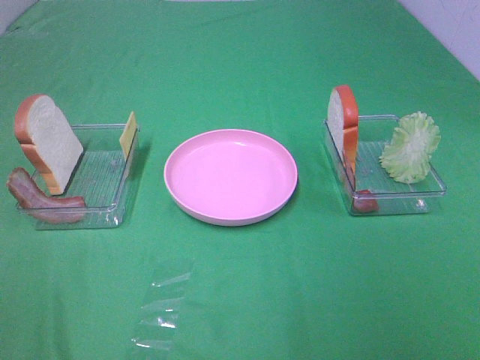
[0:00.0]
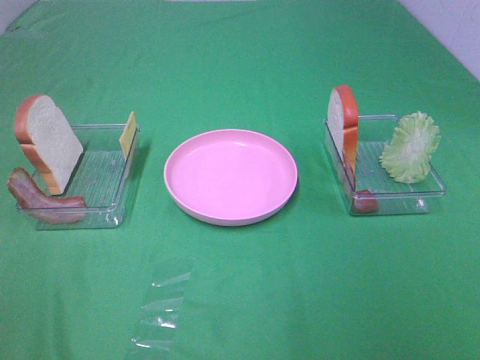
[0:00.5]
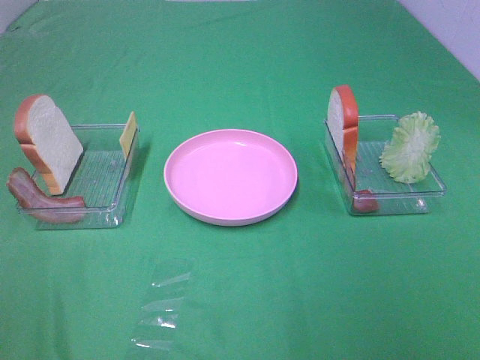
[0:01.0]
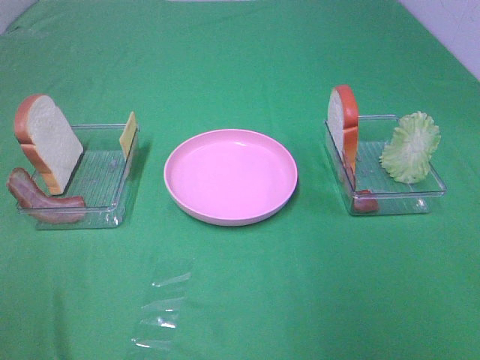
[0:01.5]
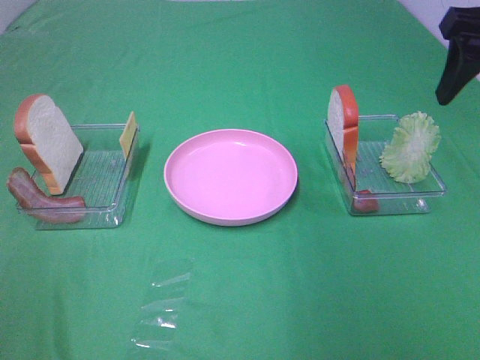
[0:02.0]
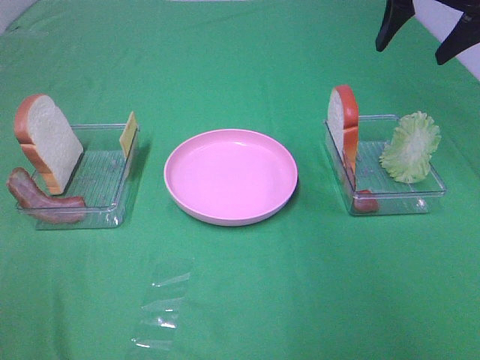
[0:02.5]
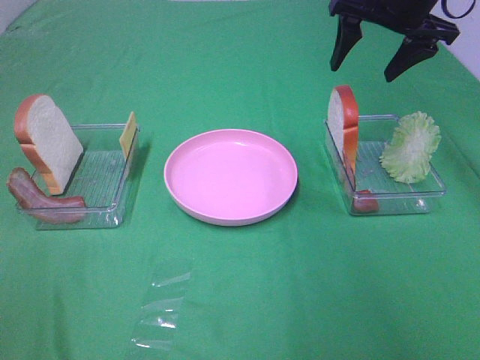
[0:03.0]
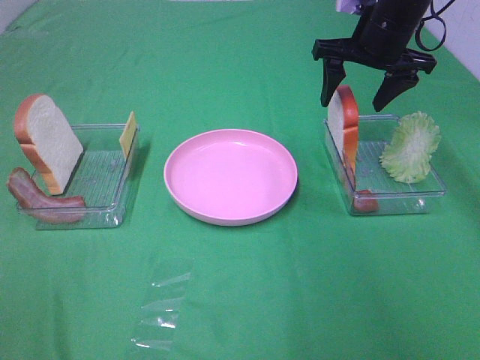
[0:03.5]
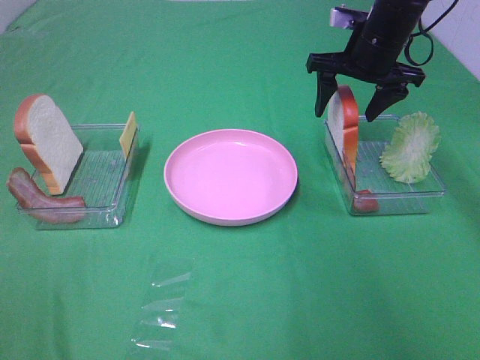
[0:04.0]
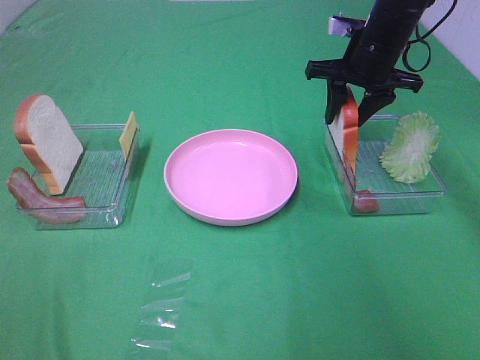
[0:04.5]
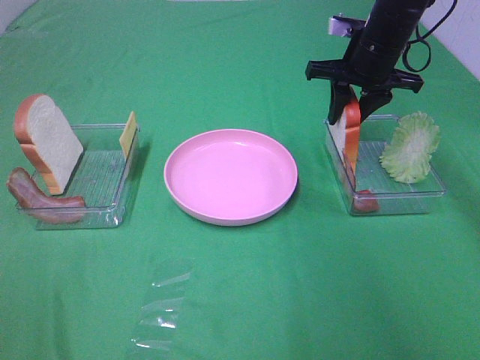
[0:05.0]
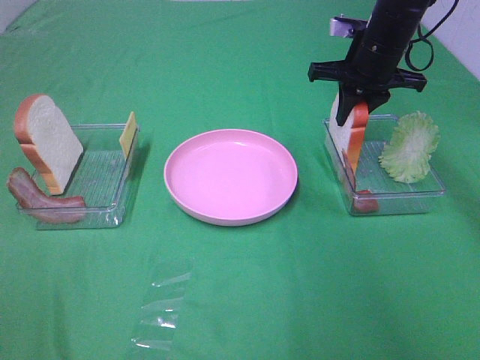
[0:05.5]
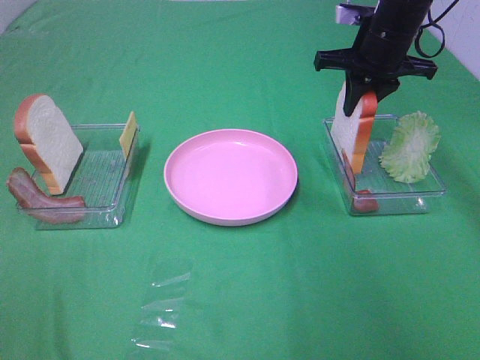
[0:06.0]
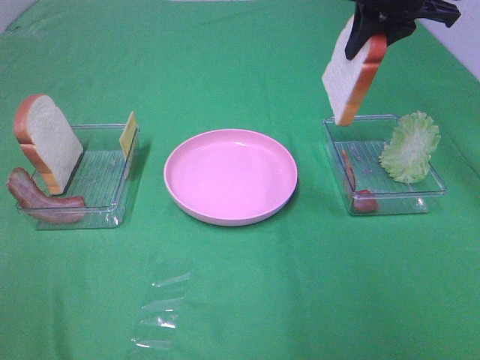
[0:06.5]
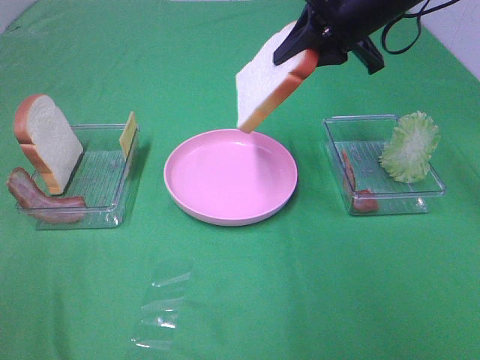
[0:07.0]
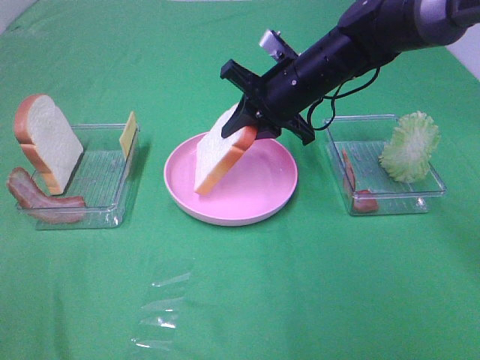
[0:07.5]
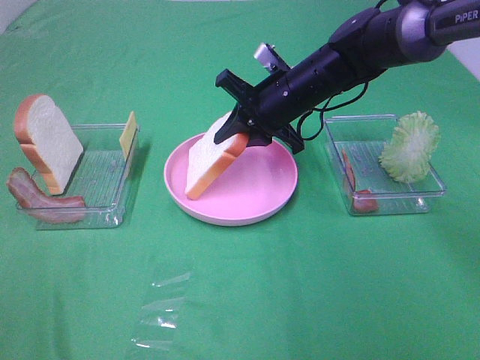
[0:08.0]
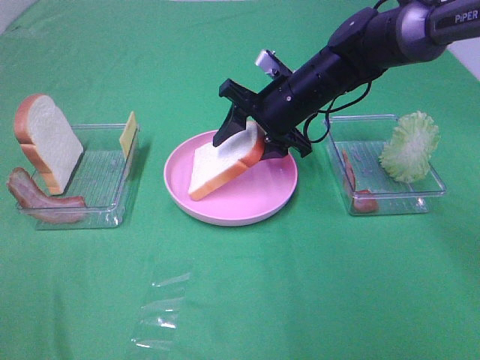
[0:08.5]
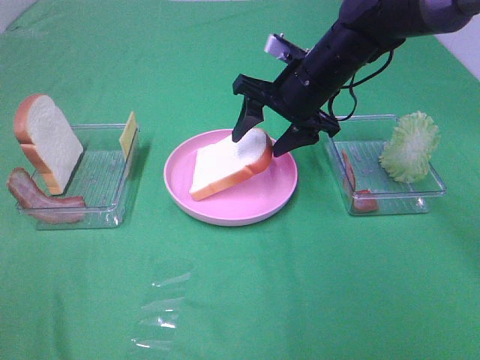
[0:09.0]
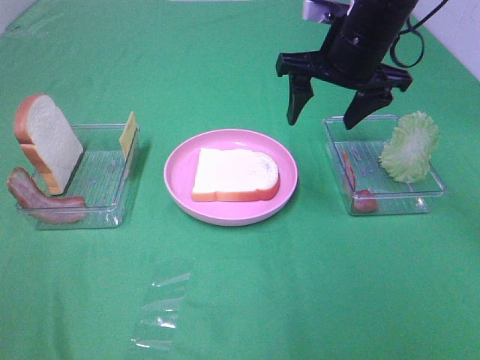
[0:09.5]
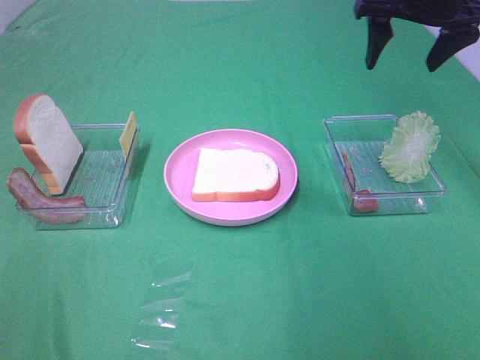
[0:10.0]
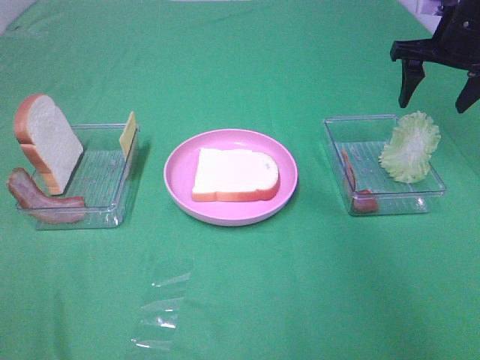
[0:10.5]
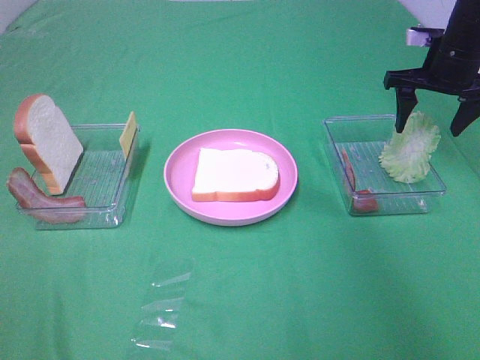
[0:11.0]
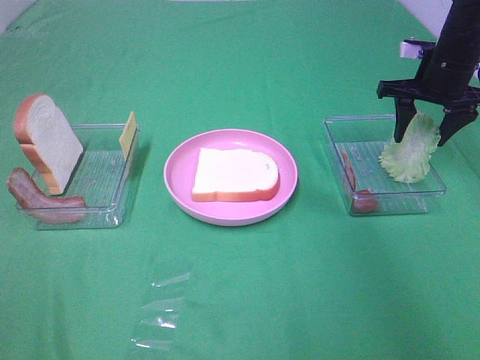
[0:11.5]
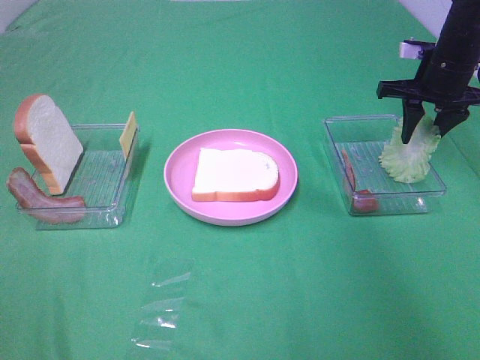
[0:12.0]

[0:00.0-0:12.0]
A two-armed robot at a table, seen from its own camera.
Task of the whole recording: Make sandwiches.
Step, 0:00.0 to 0:05.0: Right hand:grab the bread slice.
Step, 0:05.5 to 0:09.0: Right hand:place the bread slice on the plate.
0:00.0 to 0:02.0: The right gripper moves forward, roughly 30 cm.
0:02.0 to 0:04.0: The right gripper shifts approximately 20 cm forward, downward and to the left.
0:04.0 to 0:06.0: The right gripper closes up.
0:06.0 to 0:08.0: The right gripper shifts about 15 cm to the left and downward.
0:08.0 to 0:10.0: The right gripper travels upward and to the right by about 20 cm, and opens.
0:10.0 to 0:12.0: The right gripper is displaced downward and to the right by about 15 cm, and closes up.

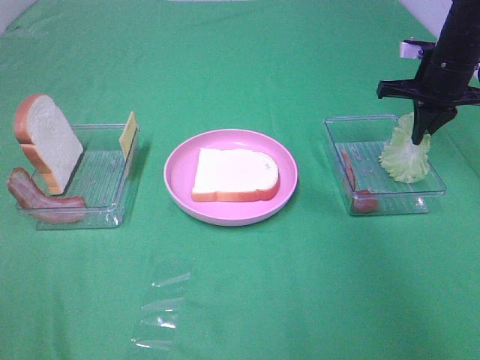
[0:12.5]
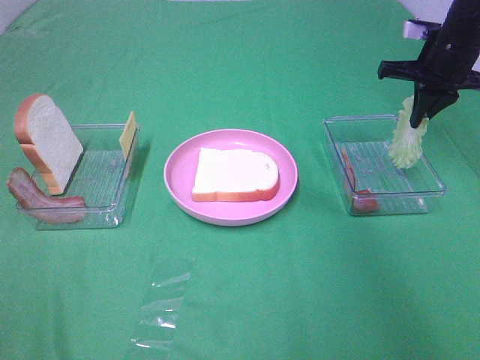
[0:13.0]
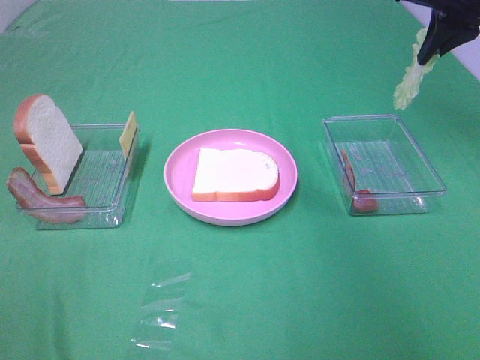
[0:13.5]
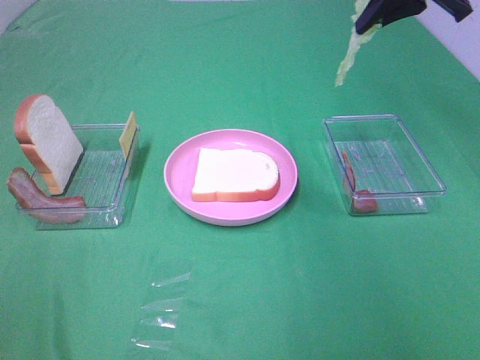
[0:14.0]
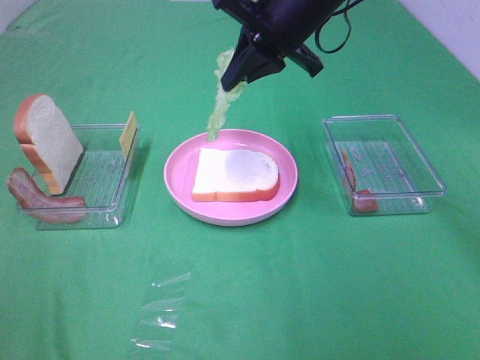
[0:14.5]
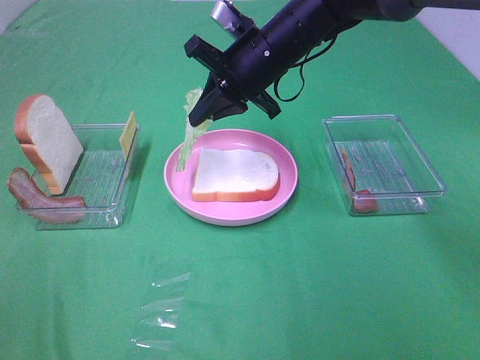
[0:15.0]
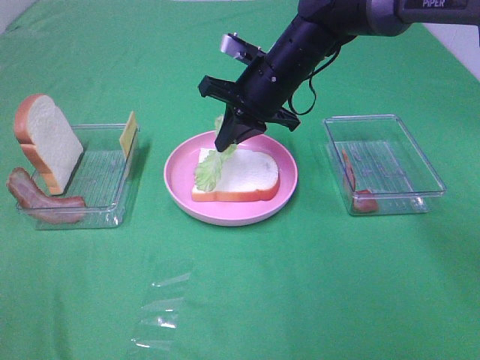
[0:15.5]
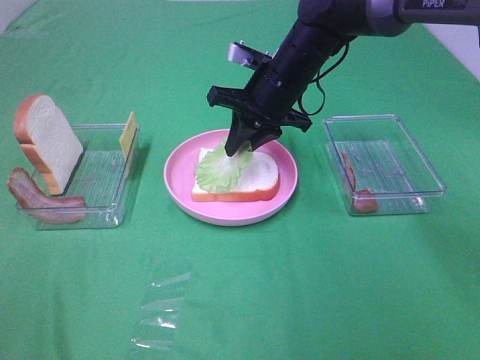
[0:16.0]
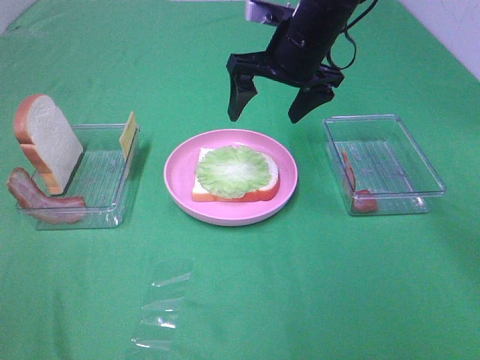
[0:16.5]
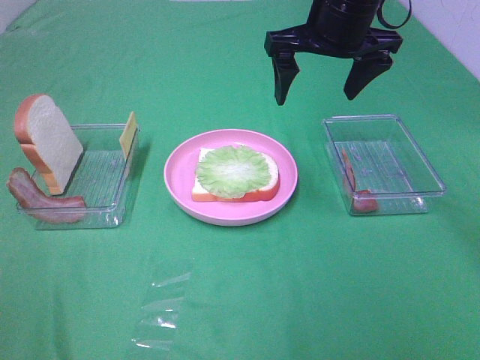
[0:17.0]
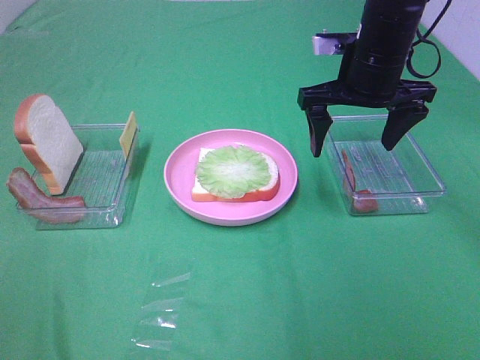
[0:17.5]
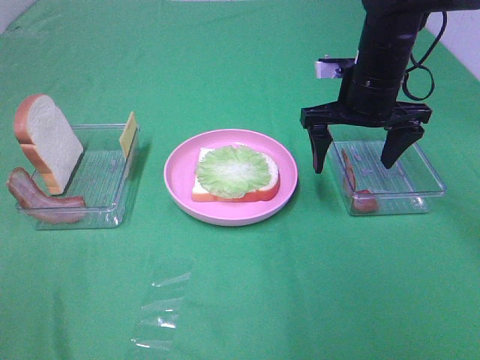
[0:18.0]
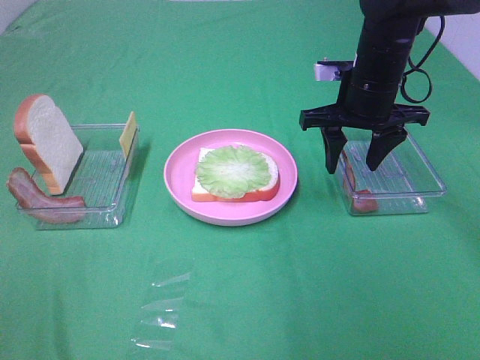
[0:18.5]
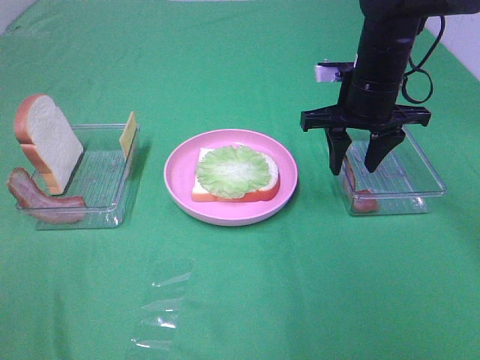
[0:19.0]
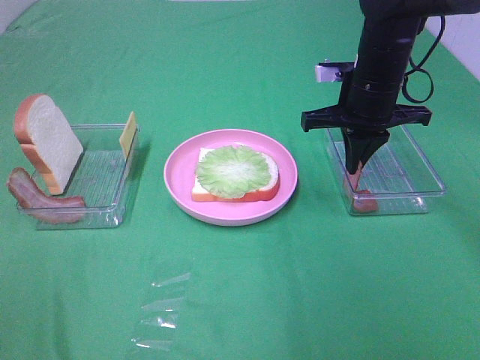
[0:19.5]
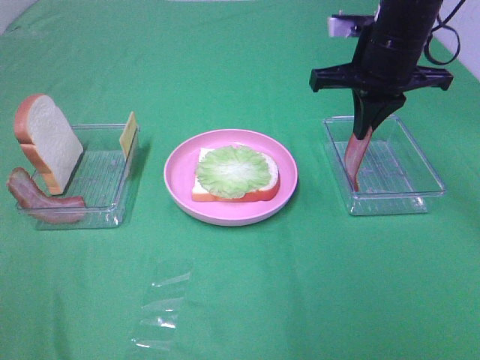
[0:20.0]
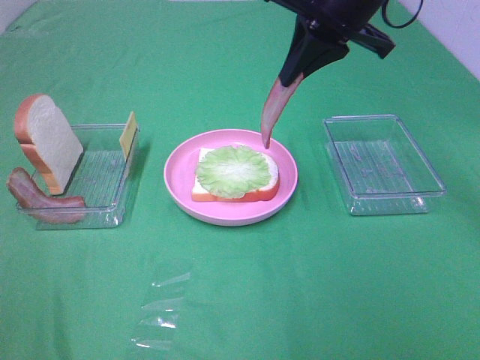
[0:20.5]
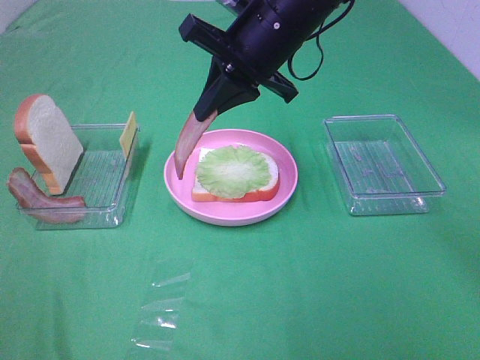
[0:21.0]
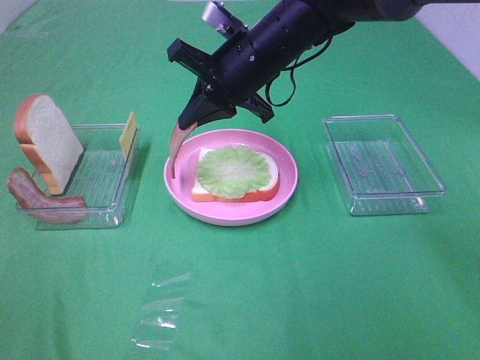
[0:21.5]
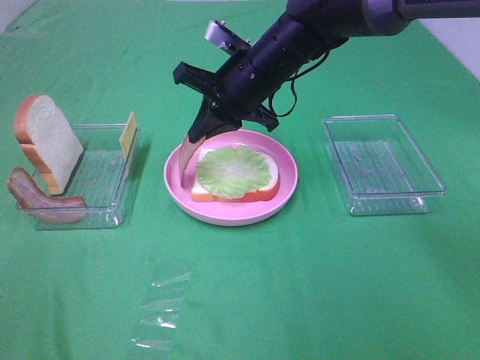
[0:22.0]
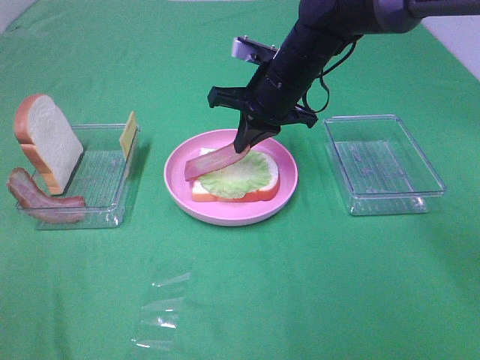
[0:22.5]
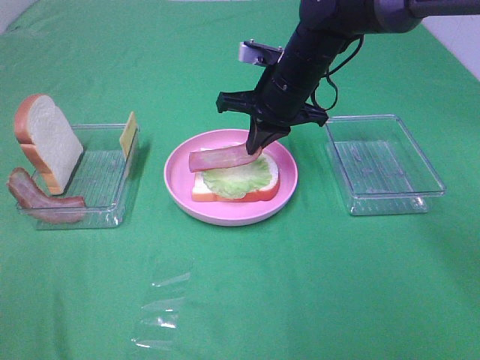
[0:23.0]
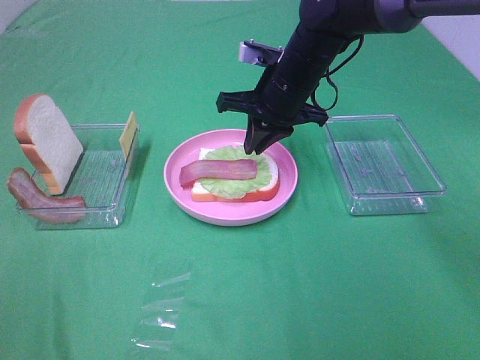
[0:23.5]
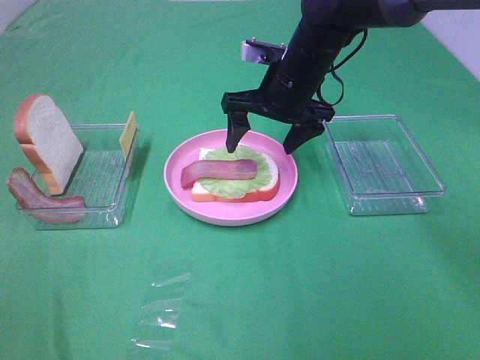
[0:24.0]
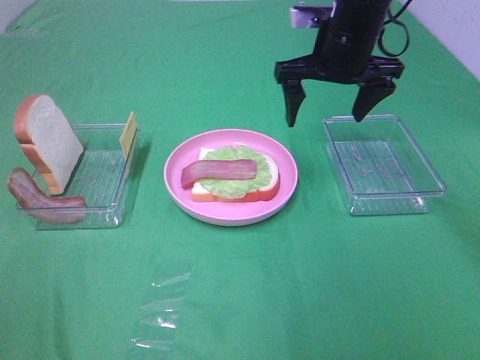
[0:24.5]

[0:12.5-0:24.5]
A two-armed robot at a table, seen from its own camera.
Task of the whole recording: Make sandwiches.
Step, 0:13.0 to 0:16.0: Right hand:place the lettuce slice on the bread slice.
Step, 0:16.5 to 0:19.0: Right hand:grab the bacon.
Step, 0:19.5 to 0:23.5: Right hand:place bacon on lettuce slice.
0:12.5 to 0:14.5: The right gripper shifts approximately 25 cm to the left and upward.
0:14.5 to 0:16.5: The right gripper reaches some 10 cm downward, then returns, and opens up.
0:16.5 to 0:18.5: The right gripper heads to the right and downward, covering about 10 cm, and closes its fingers.
0:18.5 to 0:20.5: The right gripper heads upward, covering about 10 cm, and closes.
0:20.5 to 0:22.5: The right gripper heads downward, covering about 15 cm.
0:22.5 to 0:24.5: The right gripper shifts some 10 cm to the right and upward, and opens up.

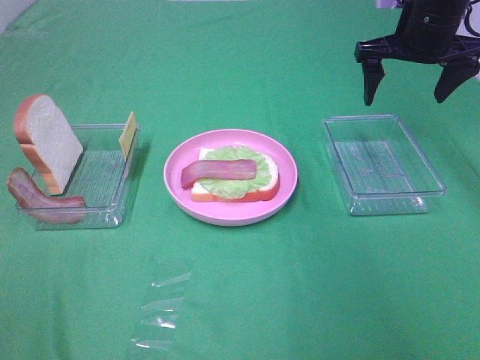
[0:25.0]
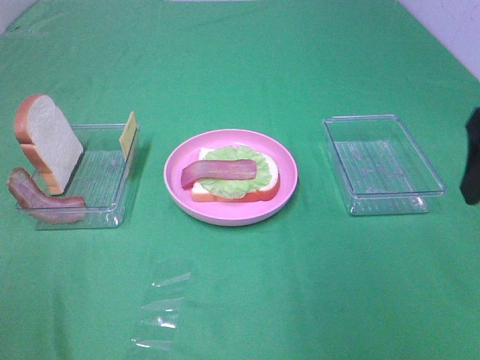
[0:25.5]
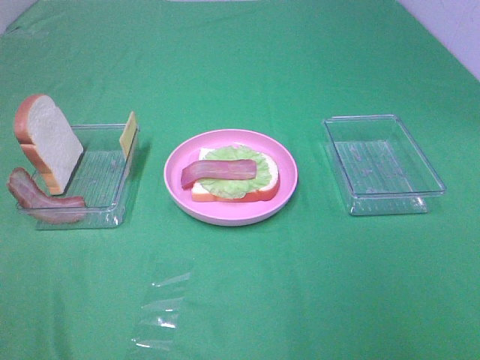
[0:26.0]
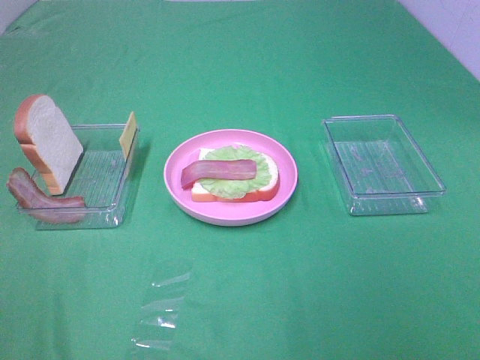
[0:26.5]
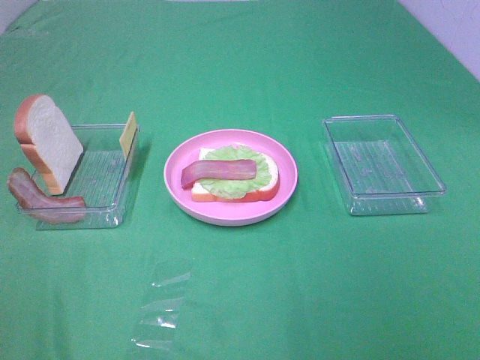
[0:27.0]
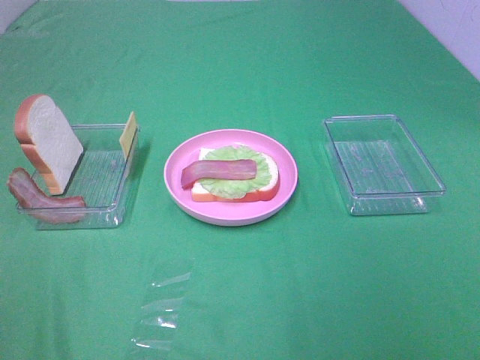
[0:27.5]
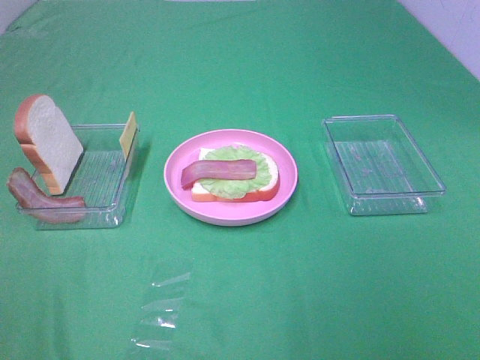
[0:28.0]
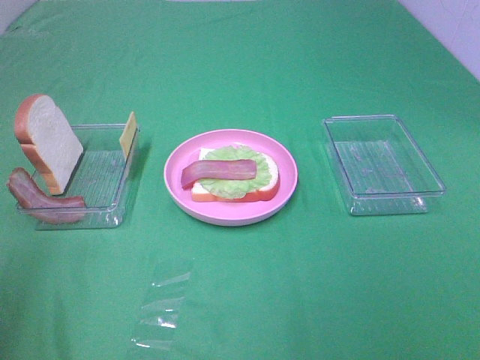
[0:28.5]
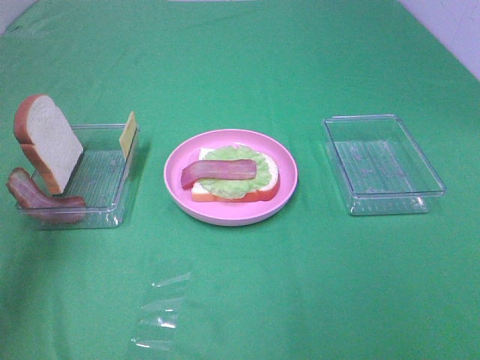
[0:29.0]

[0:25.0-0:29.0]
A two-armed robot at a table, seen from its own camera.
Task of the whole recording: Make sandwiches.
0:25.0 to 0:27.0: The right gripper travels backward by roughly 40 cm.
0:27.0 to 0:29.0: The left gripper is displaced forward by some 35 cm.
